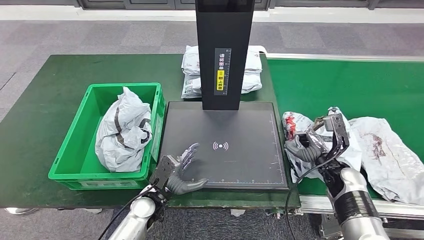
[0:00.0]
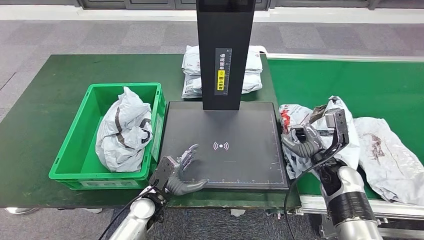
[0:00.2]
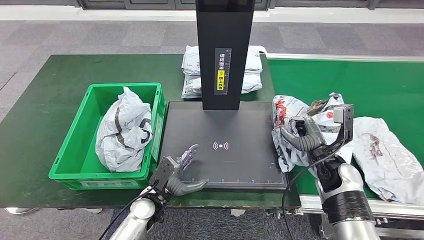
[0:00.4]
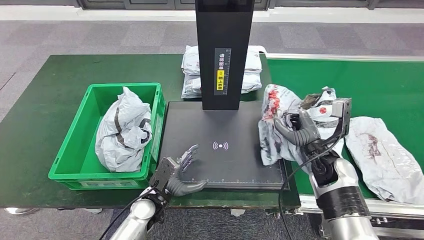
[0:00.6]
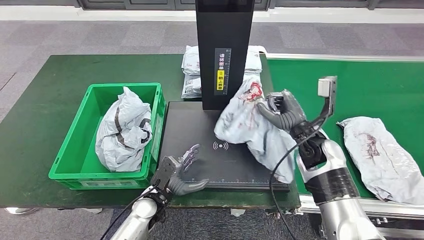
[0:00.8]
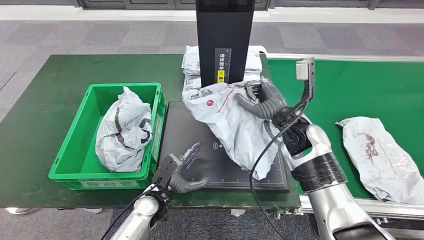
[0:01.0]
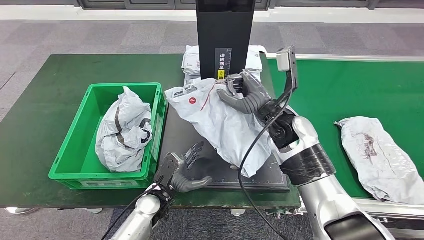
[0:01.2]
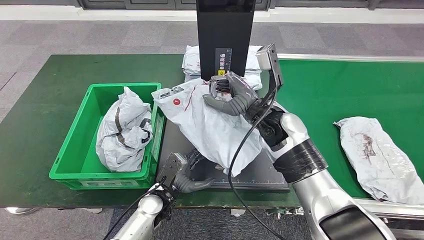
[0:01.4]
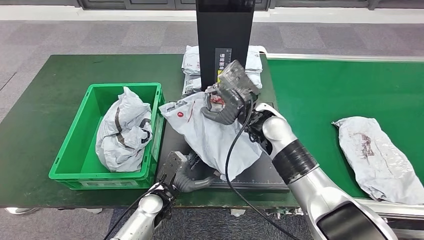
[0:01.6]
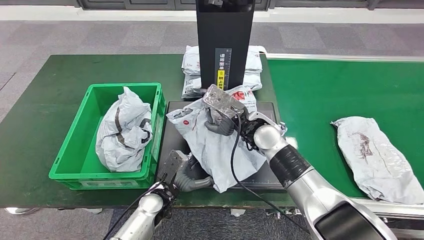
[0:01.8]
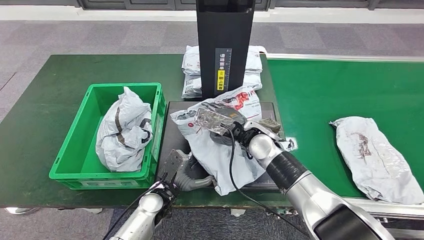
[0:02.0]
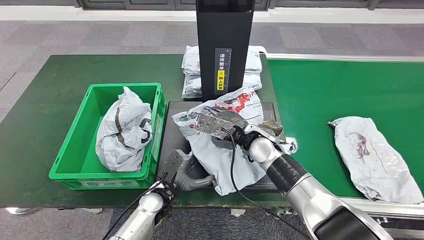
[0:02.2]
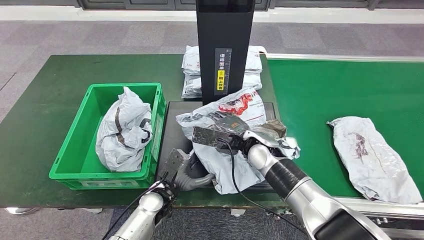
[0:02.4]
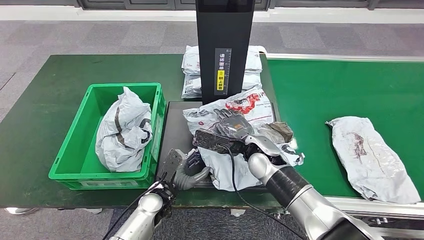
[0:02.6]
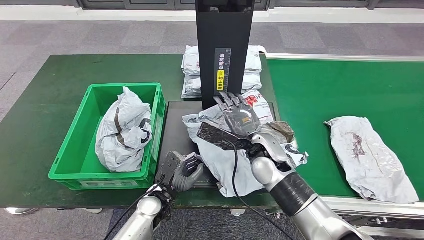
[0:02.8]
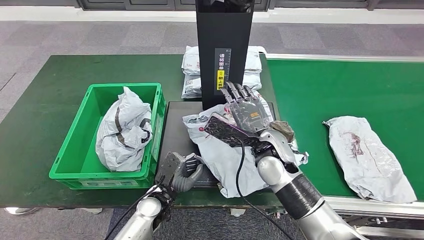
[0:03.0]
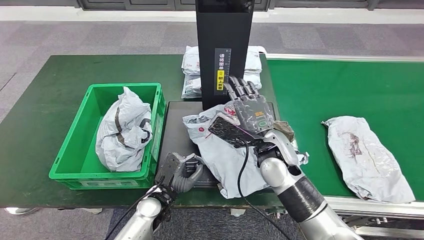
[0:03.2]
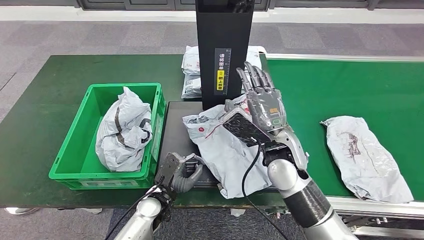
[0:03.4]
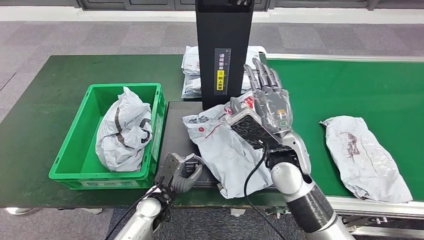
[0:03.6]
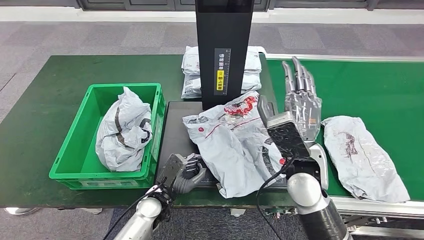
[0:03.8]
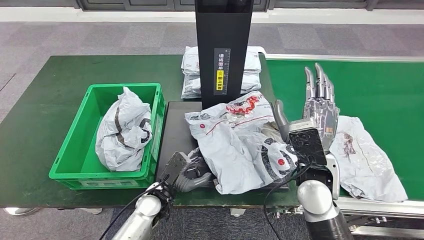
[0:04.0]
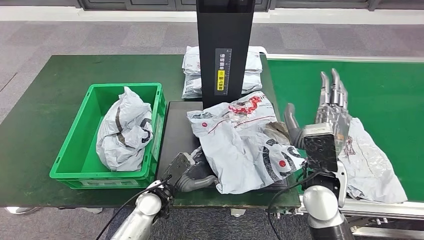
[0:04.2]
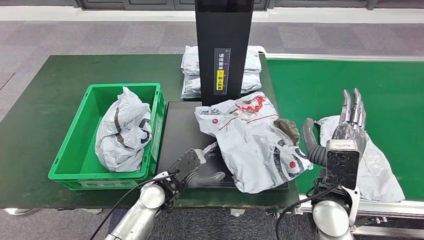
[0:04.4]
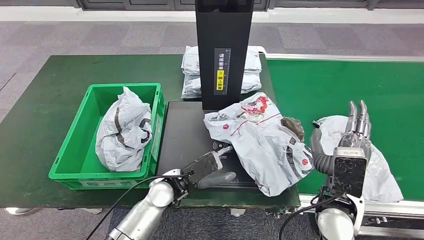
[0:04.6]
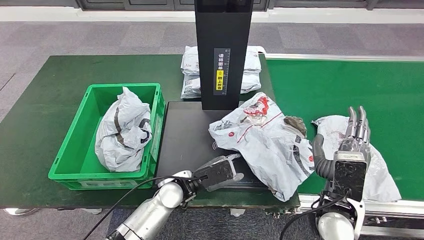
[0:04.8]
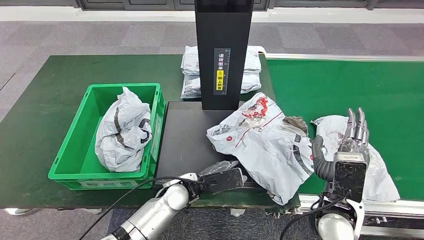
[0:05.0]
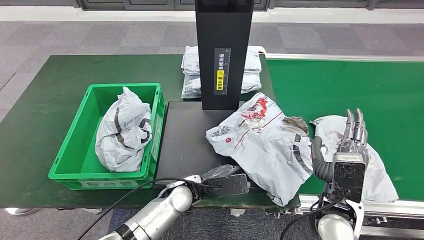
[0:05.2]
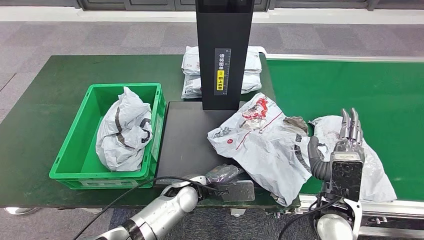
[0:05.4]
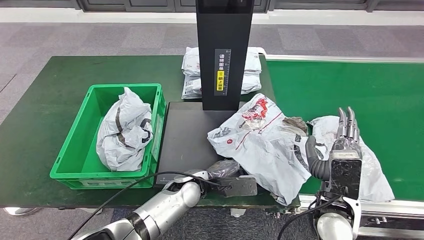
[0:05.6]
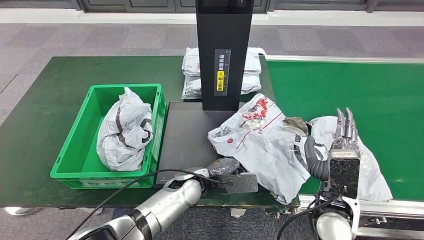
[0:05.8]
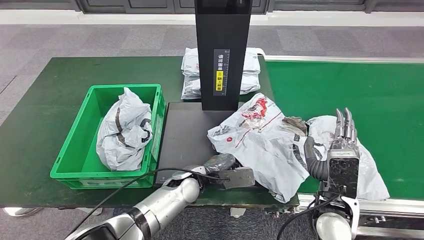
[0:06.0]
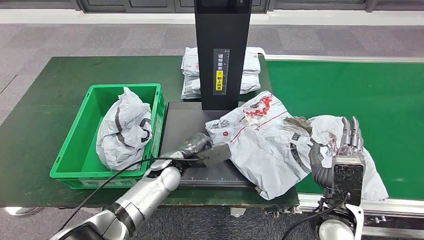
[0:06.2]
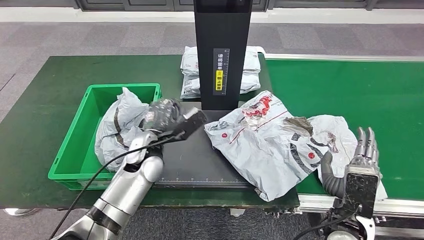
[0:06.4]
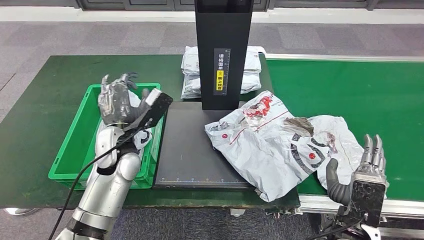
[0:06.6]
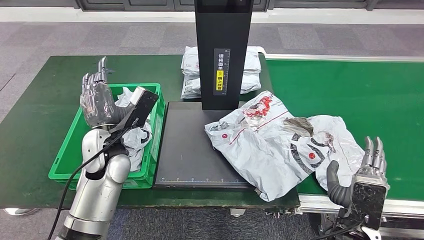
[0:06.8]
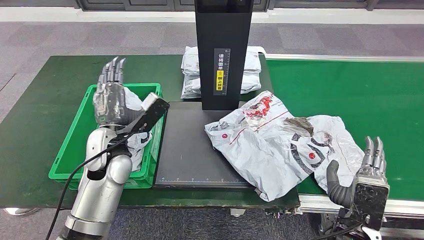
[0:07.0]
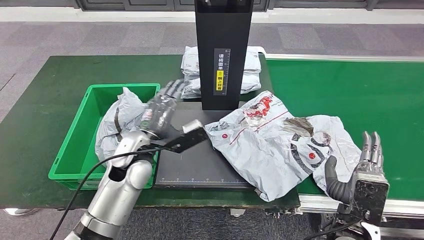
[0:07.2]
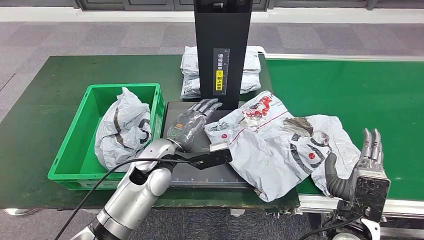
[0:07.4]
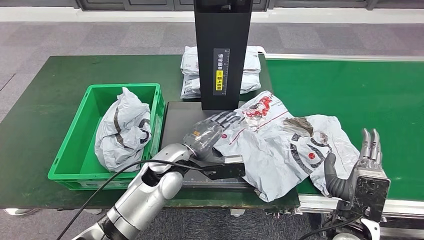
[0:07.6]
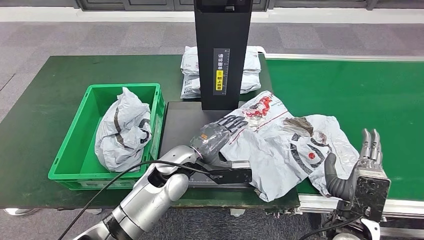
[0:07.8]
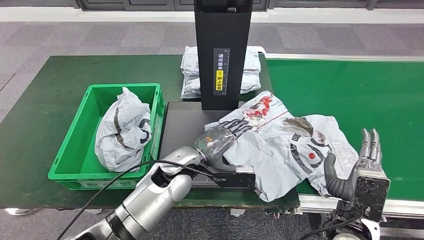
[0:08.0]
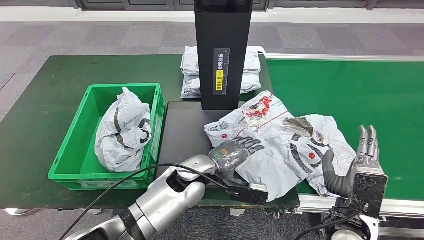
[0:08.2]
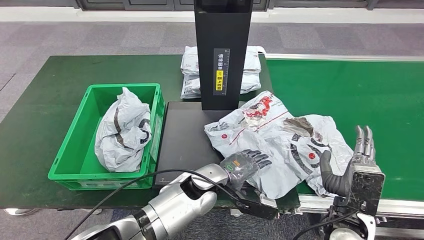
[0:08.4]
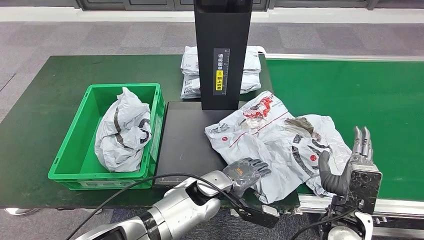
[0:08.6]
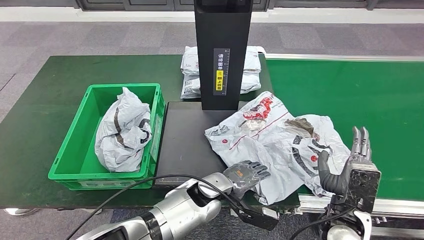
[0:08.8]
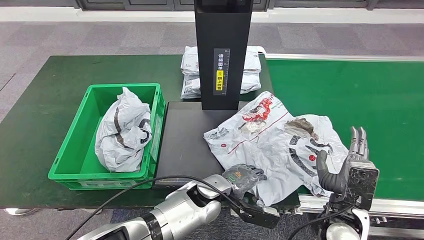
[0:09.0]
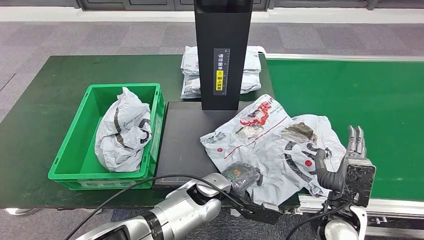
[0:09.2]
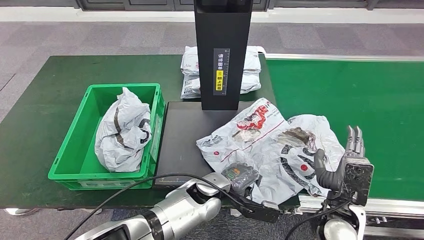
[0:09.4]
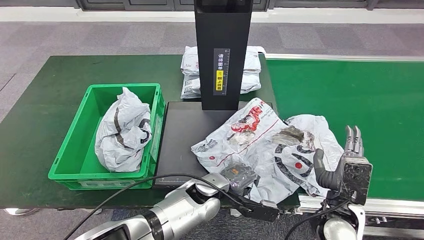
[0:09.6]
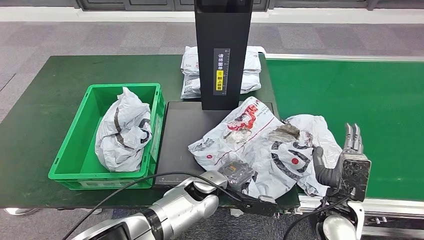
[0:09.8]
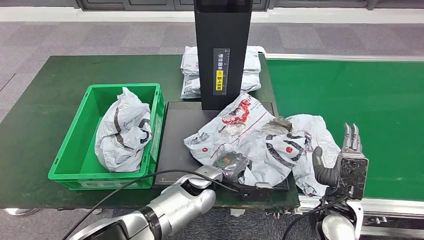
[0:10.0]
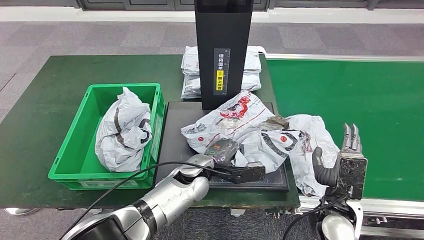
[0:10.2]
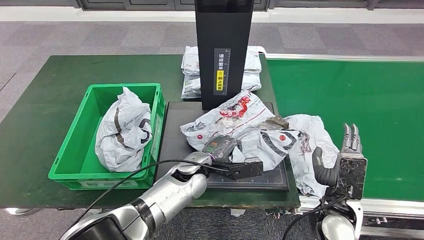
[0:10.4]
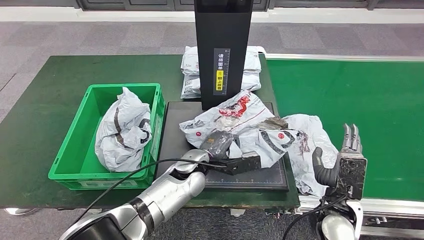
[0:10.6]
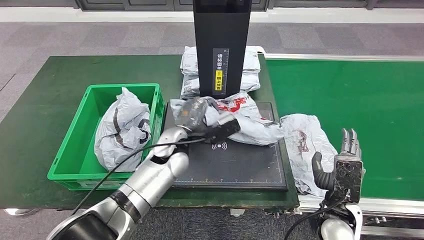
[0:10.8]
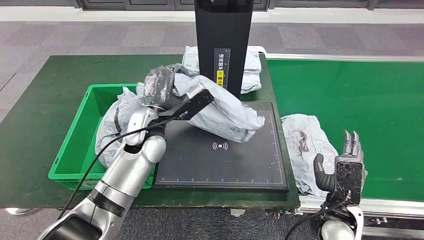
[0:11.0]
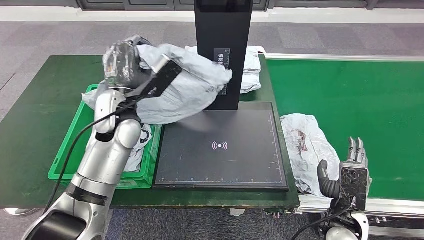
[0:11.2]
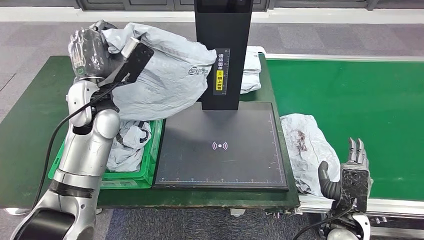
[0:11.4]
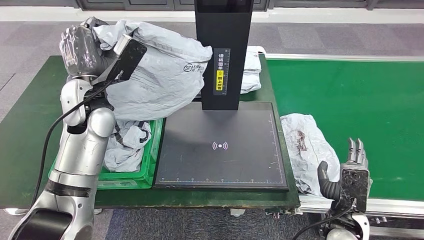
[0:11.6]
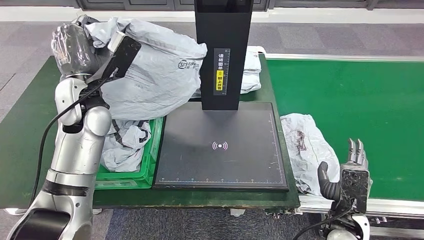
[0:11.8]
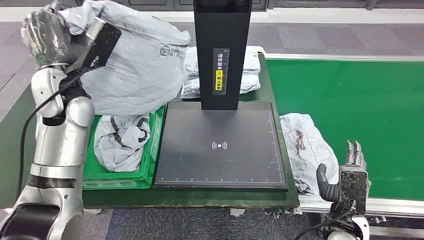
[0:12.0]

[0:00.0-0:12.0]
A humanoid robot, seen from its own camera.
Step, 0:01.4 to 0:03.8: Place the parcel onto the inbound machine.
Step, 0:04.2 to 0:11.4: Pick up the parcel from the inbound machine.
0:01.6 to 0:03.0: The right hand shifts some 5 cm backward.
0:03.0 to 0:04.4: The left hand goes about 5 cm upward, while the right hand travels to the right and backward by approximately 15 cm.
0:07.6 to 0:09.0: The left hand moves to the right and downward, about 10 cm.

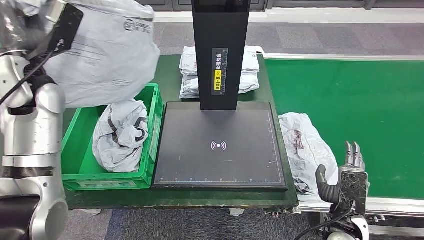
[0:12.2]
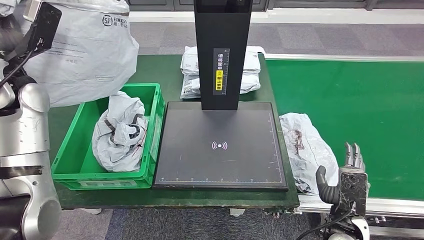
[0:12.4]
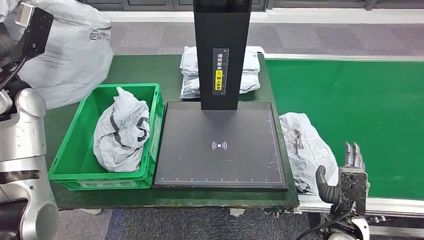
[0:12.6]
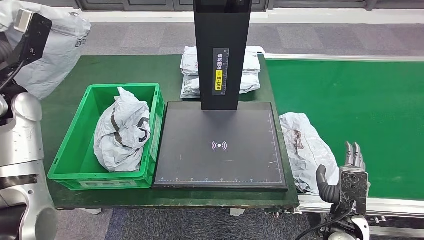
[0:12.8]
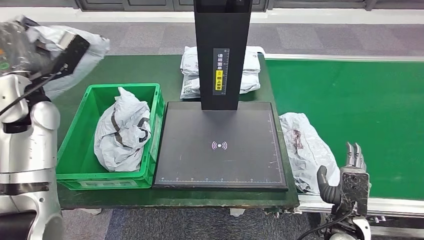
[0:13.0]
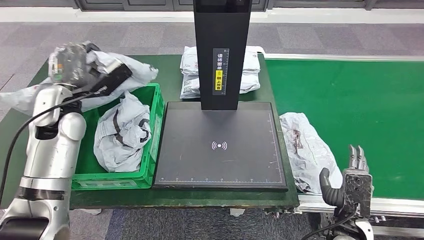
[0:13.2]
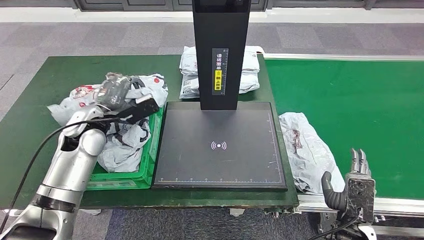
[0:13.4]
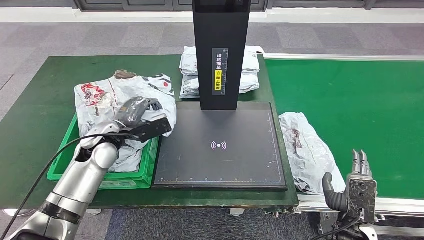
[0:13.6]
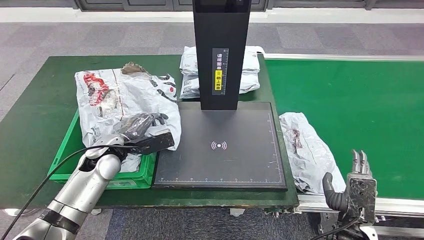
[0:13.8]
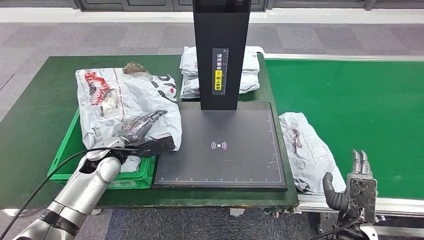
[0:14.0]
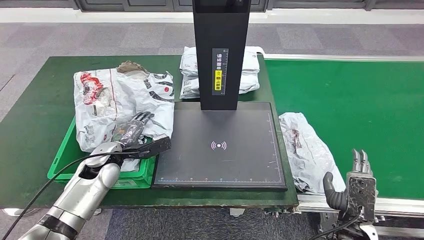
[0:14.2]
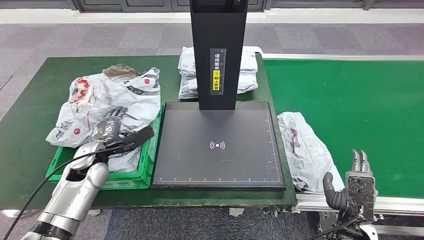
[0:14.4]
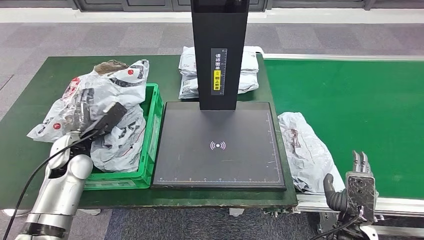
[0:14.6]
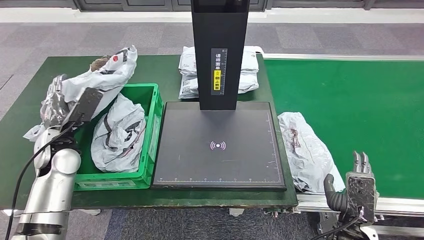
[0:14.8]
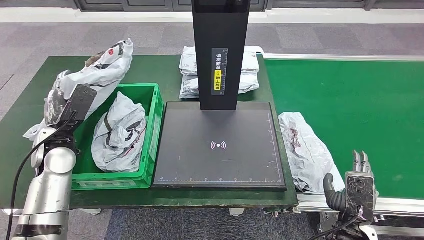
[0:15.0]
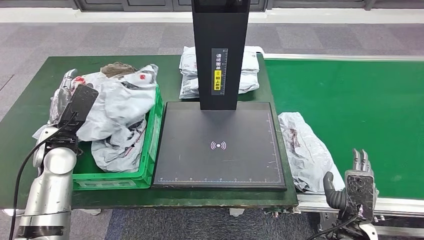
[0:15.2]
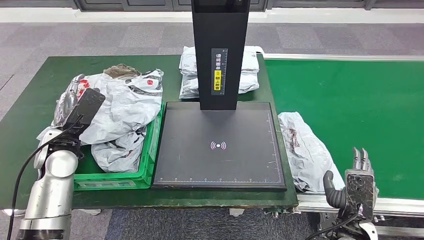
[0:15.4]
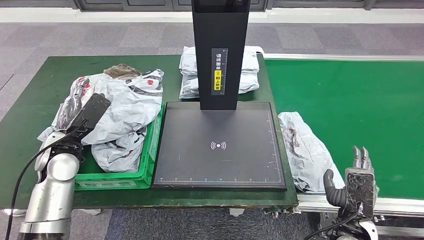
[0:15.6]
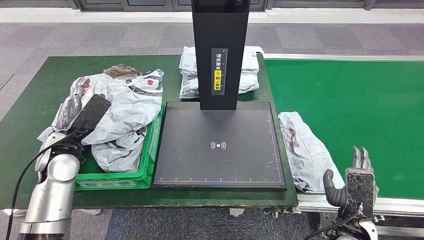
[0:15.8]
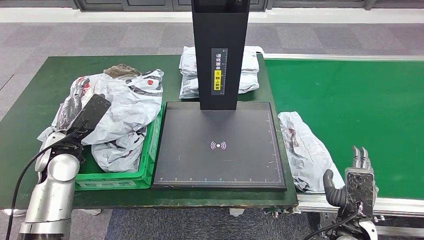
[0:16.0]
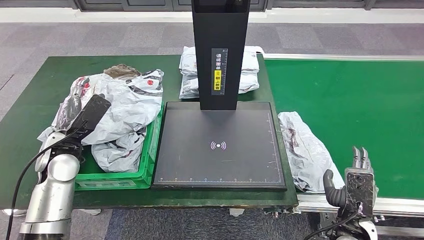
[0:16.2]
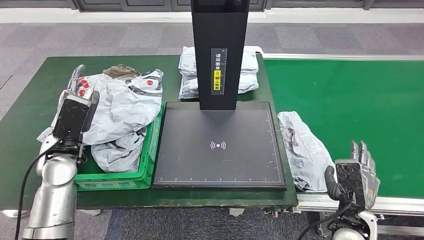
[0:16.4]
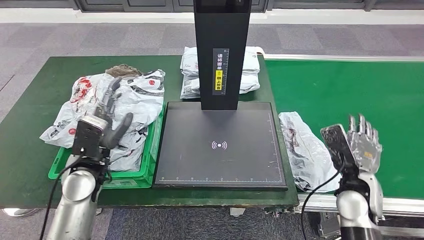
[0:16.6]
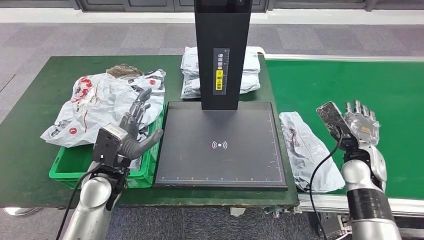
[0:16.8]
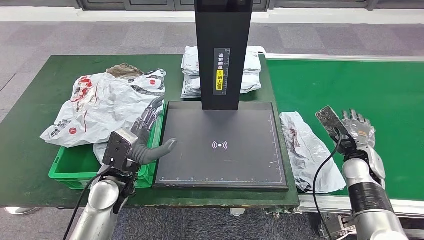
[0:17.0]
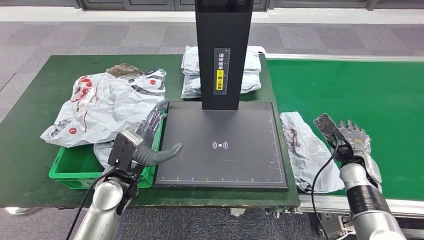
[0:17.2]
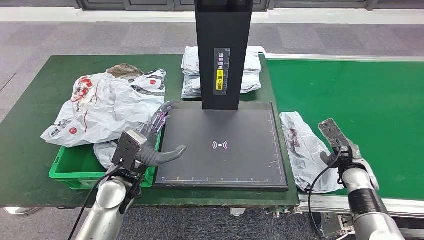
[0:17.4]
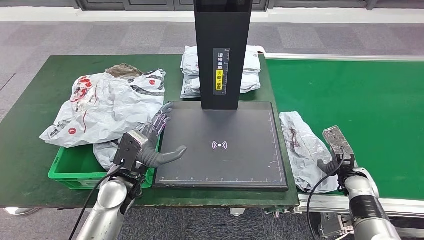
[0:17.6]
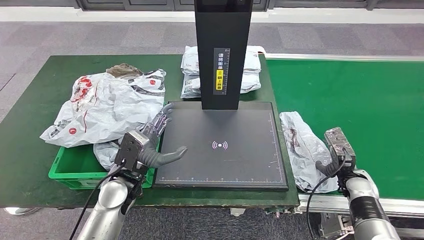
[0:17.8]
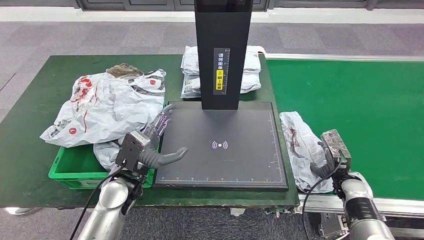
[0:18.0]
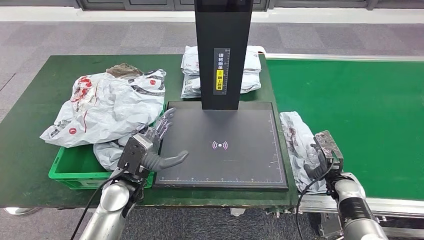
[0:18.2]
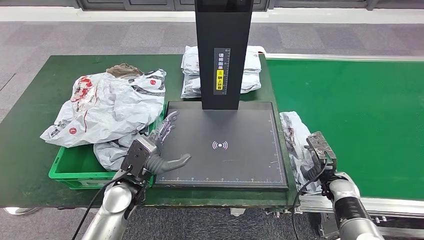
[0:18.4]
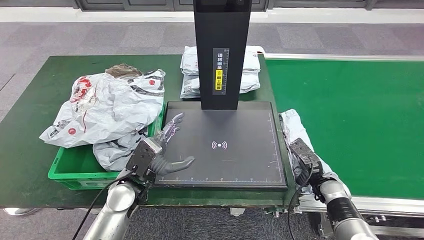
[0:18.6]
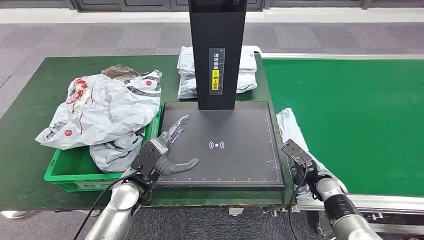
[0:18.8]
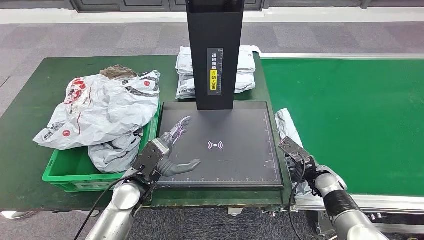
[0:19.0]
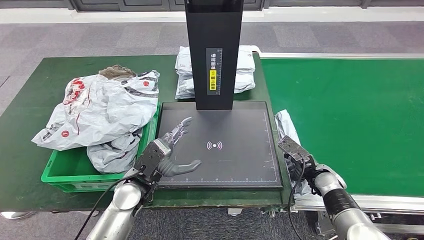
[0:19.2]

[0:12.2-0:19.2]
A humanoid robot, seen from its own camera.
Step, 0:12.2 to 0:16.2: Place the parcel into the delivery box.
0:13.6 to 0:15.0: The left hand shifts approximately 10 cm to the left.
